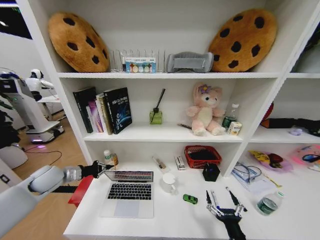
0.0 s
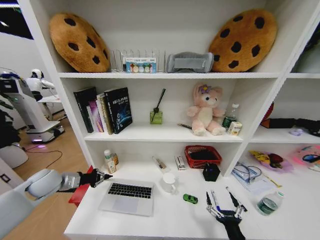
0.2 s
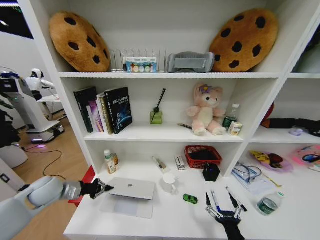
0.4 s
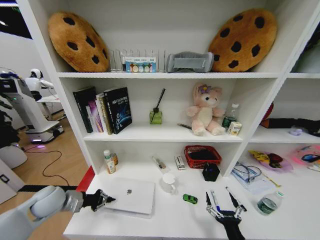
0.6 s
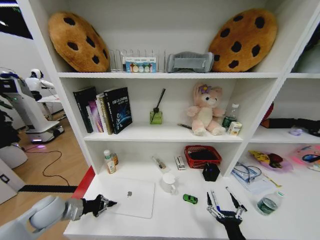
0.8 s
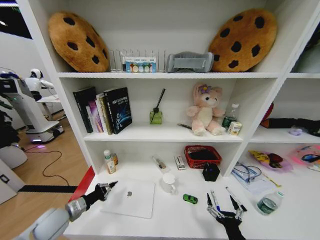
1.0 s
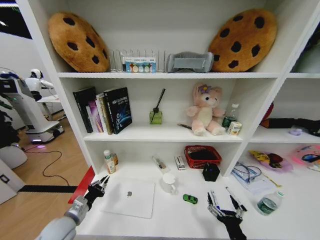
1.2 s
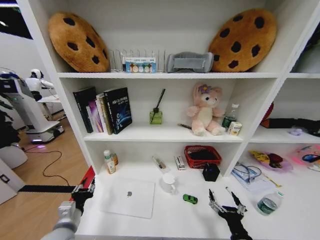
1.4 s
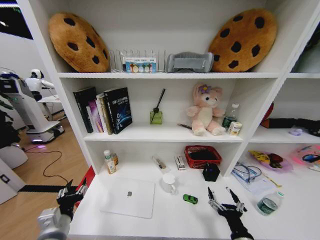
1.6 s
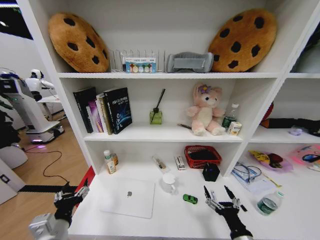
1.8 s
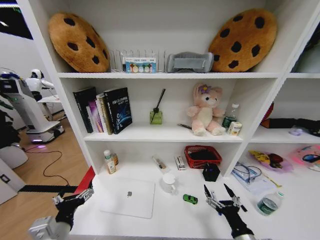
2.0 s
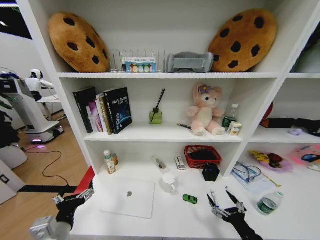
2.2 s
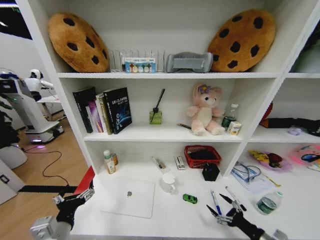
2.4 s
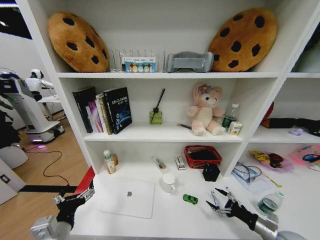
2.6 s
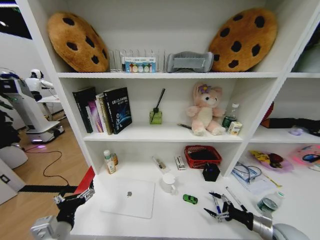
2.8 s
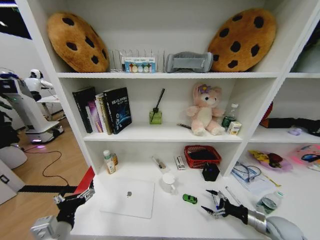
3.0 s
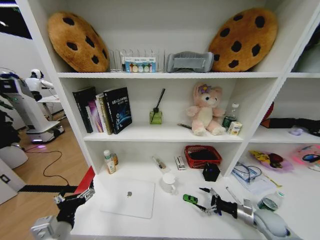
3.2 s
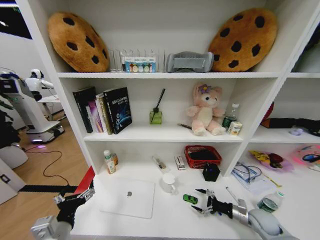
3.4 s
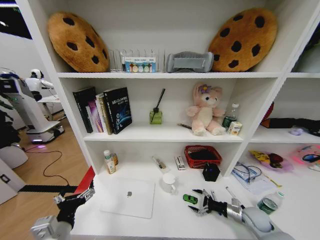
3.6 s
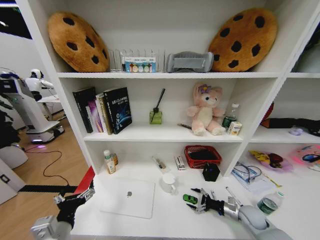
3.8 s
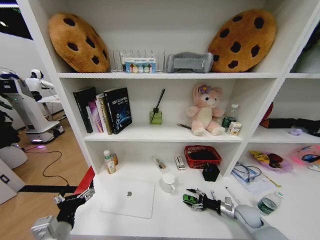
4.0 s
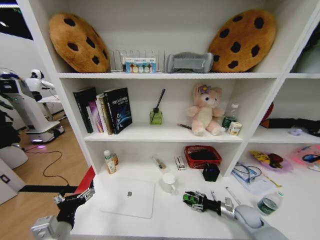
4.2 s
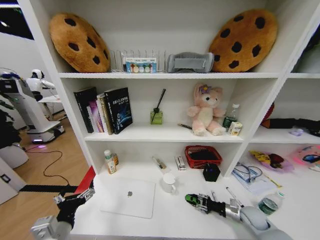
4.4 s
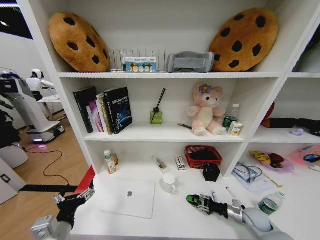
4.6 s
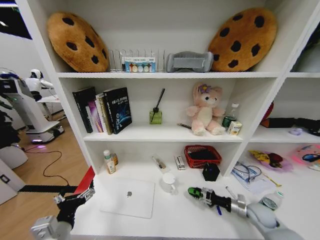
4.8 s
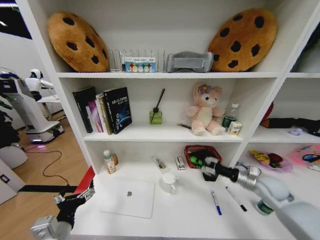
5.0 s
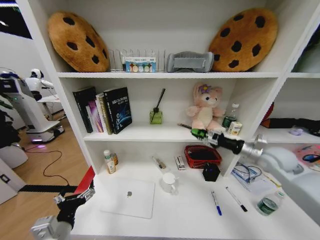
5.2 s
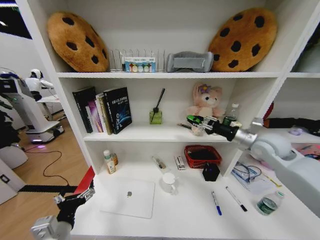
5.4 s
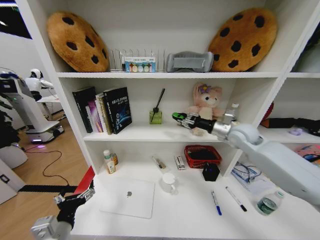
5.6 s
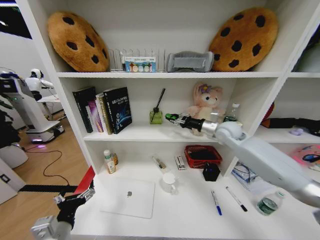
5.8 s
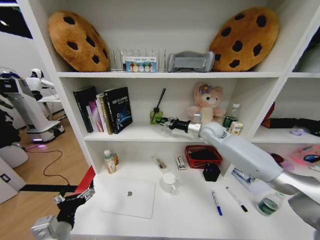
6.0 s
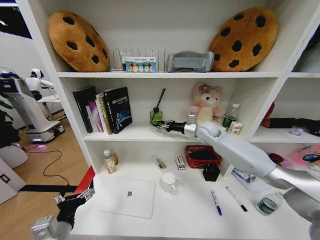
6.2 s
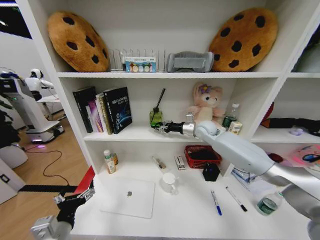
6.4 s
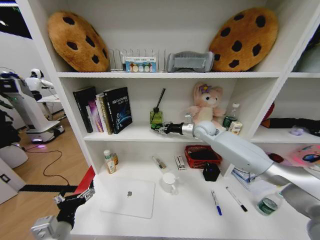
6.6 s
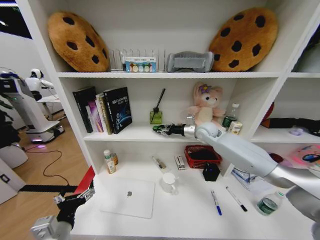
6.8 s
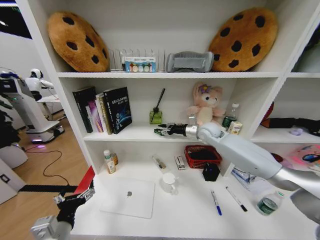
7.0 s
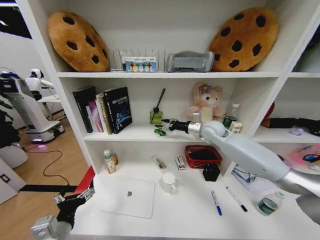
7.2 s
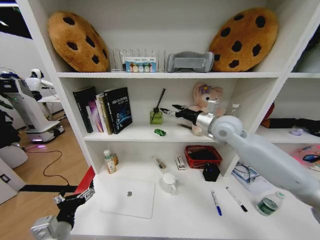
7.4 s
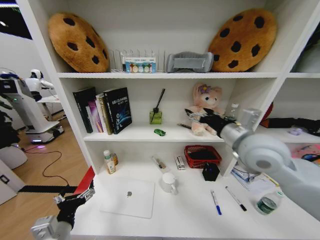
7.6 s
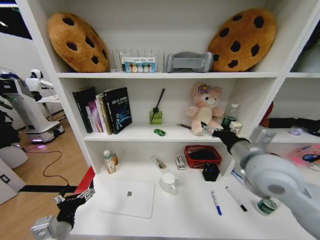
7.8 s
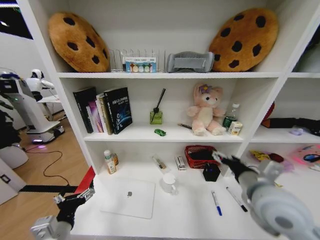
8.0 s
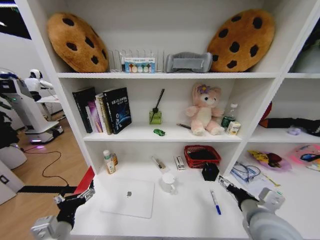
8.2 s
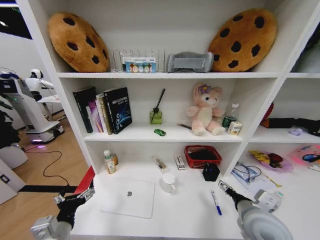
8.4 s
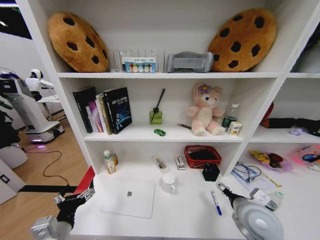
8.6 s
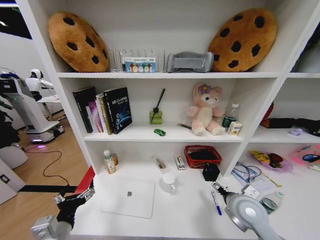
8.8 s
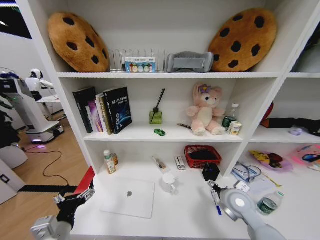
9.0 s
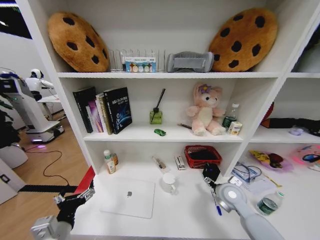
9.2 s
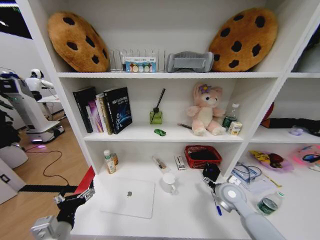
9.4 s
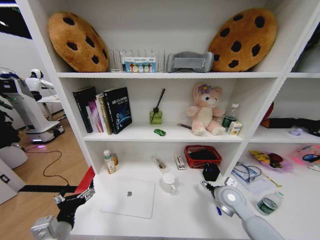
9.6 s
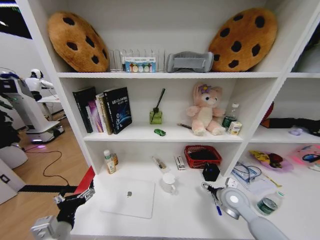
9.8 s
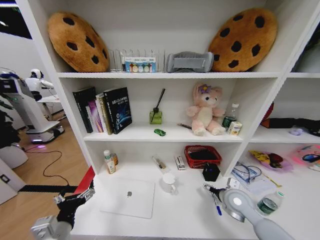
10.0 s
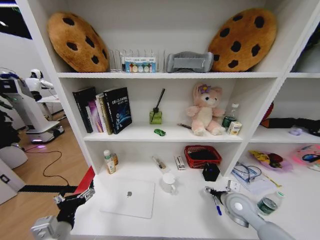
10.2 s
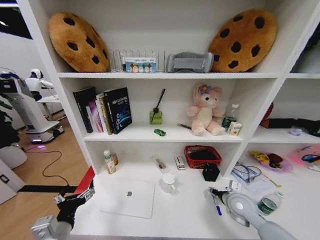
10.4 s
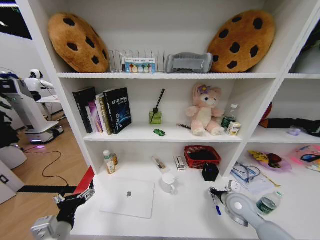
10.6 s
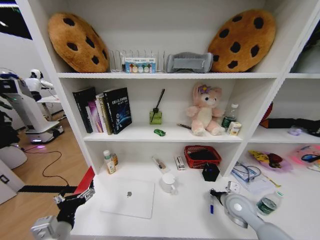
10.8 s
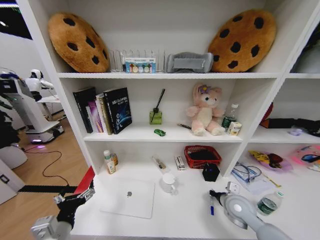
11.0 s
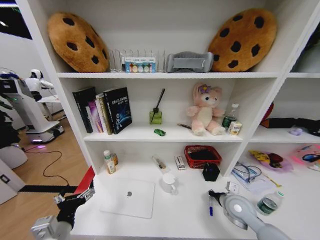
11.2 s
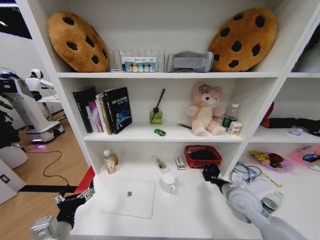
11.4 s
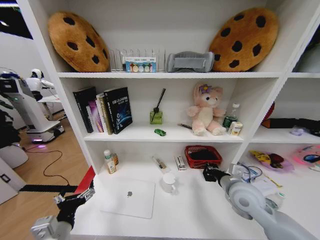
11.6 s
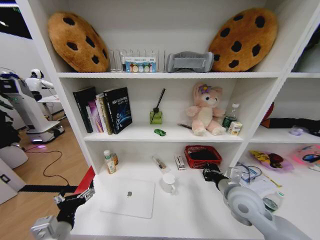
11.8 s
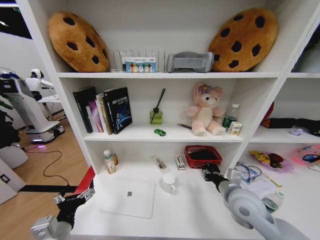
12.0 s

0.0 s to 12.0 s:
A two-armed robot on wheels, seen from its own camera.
Task of the whole recording: Organize the objects on the table.
0.0 to 1.6 s: The left gripper moves backward and to the right, roughly 25 cm, and opens its fingers.
1.6 to 3.0 s: The left gripper shifts by roughly 5 cm, and opens up, while the right gripper shifts approximately 25 cm to the right and forward.
3.0 to 4.4 s: The right gripper is displaced forward and to the left by approximately 10 cm, and closes up.
4.4 to 6.0 s: The right gripper moves upward, forward and to the left, about 40 cm.
6.0 to 7.6 s: The right gripper travels backward and upward by approximately 25 cm, and opens up.
7.6 to 9.0 s: The right gripper moves downward, about 25 cm.
9.0 to 10.4 s: The right gripper is displaced downward by about 5 cm.
10.4 to 12.0 s: The right gripper moves upward, about 10 cm.

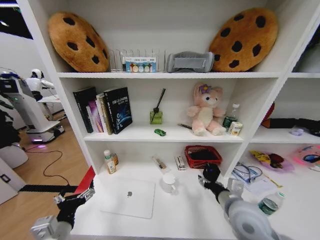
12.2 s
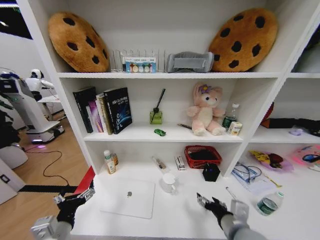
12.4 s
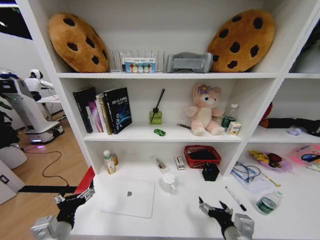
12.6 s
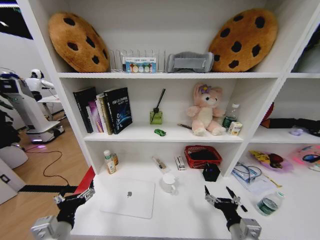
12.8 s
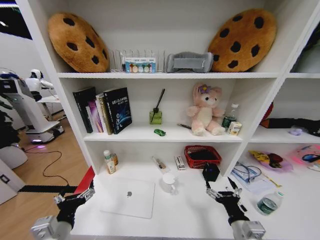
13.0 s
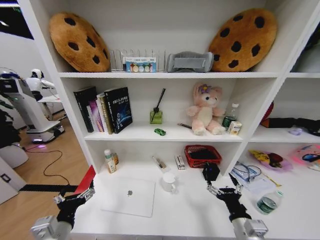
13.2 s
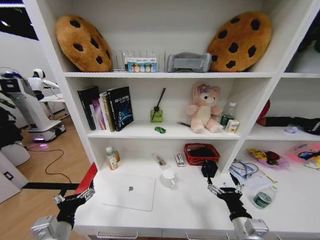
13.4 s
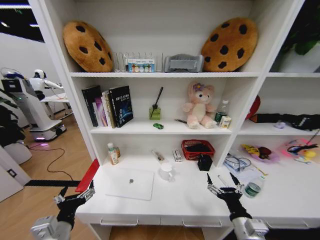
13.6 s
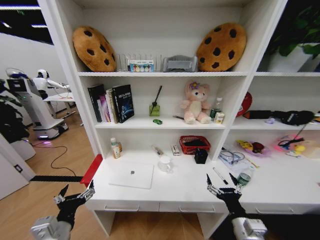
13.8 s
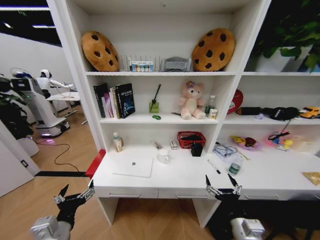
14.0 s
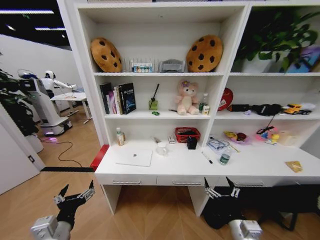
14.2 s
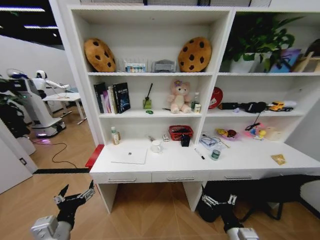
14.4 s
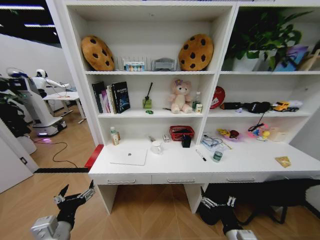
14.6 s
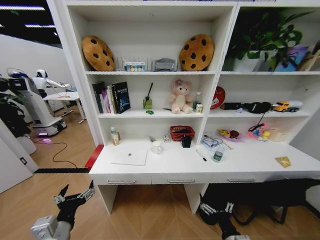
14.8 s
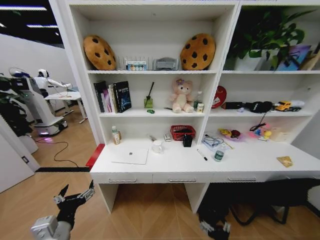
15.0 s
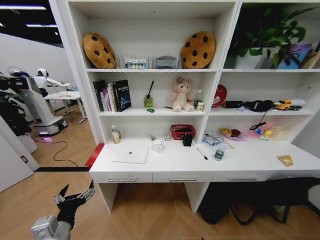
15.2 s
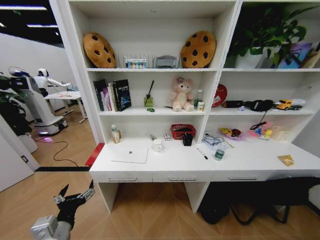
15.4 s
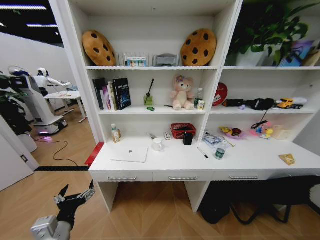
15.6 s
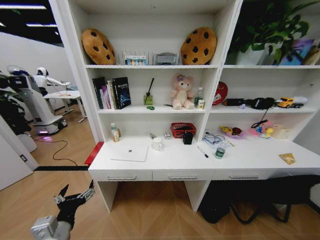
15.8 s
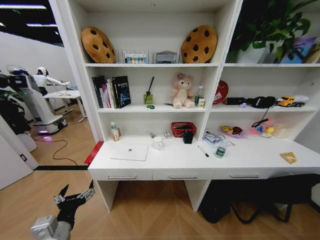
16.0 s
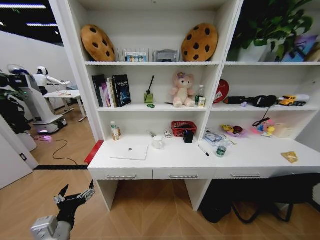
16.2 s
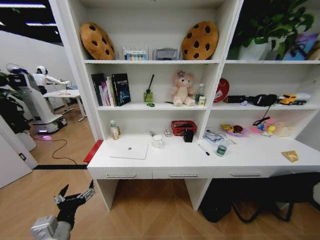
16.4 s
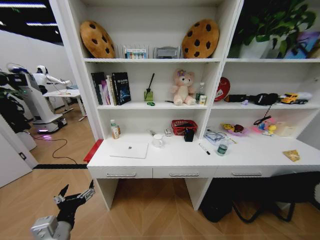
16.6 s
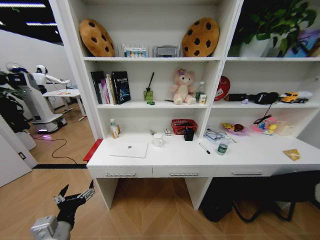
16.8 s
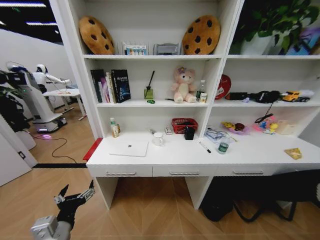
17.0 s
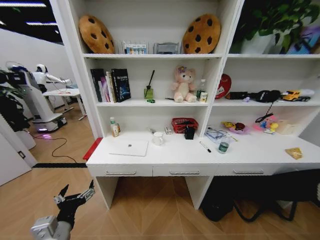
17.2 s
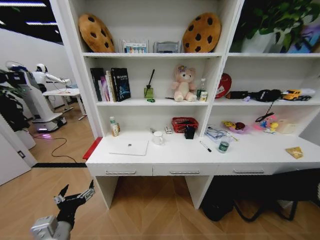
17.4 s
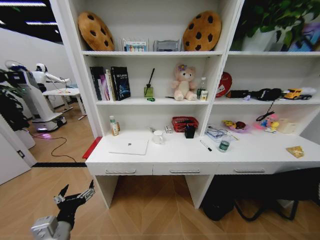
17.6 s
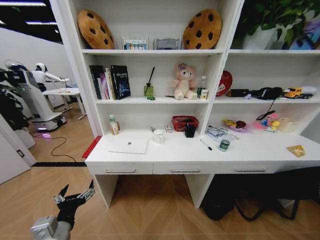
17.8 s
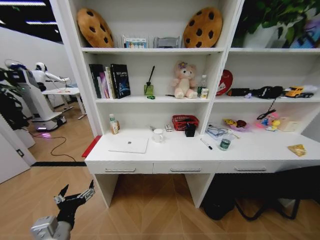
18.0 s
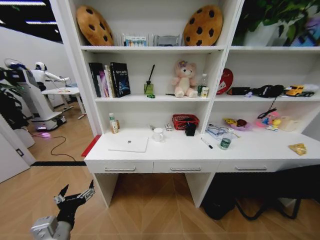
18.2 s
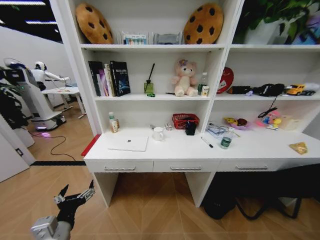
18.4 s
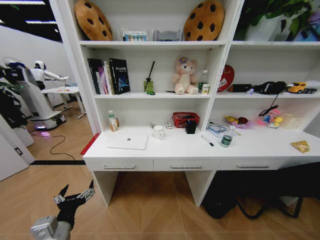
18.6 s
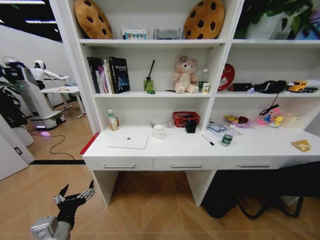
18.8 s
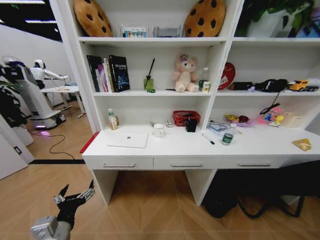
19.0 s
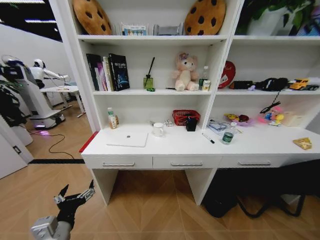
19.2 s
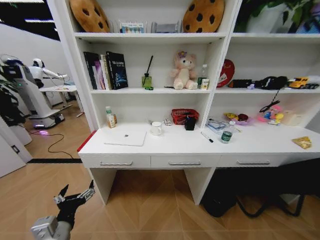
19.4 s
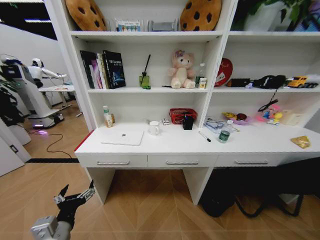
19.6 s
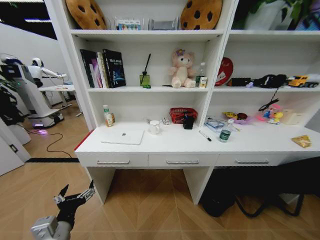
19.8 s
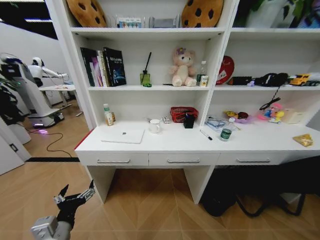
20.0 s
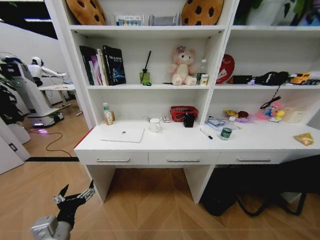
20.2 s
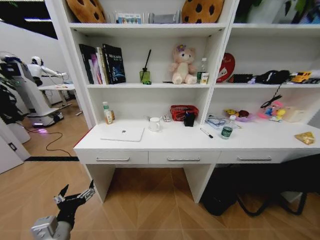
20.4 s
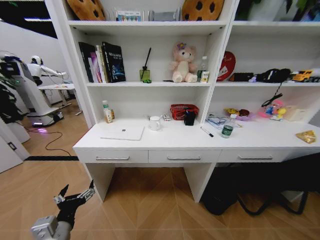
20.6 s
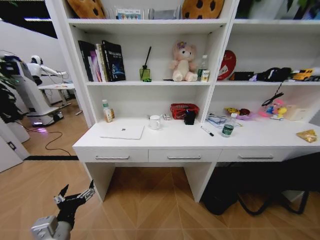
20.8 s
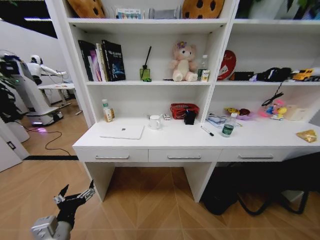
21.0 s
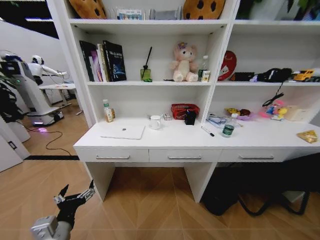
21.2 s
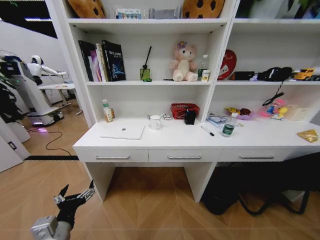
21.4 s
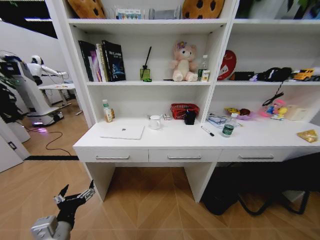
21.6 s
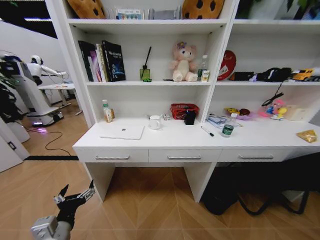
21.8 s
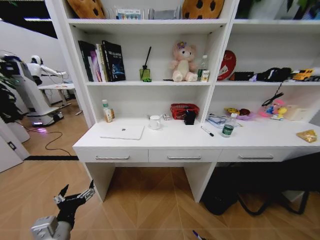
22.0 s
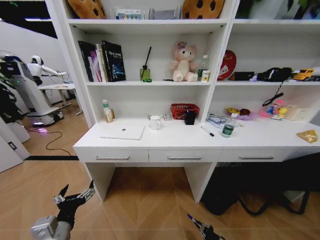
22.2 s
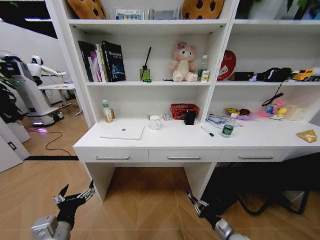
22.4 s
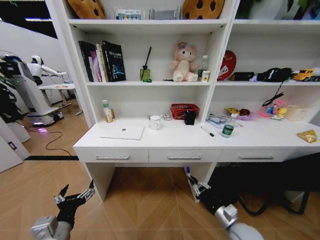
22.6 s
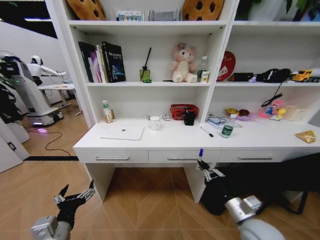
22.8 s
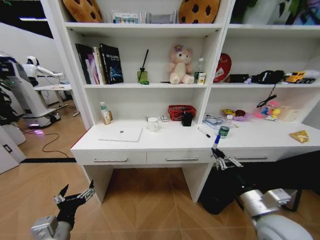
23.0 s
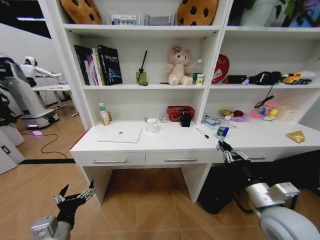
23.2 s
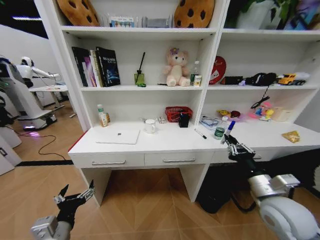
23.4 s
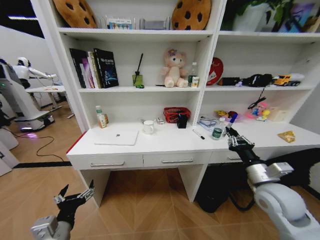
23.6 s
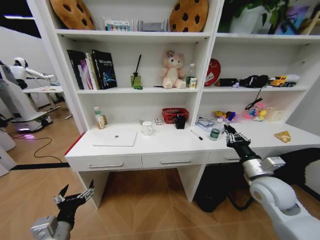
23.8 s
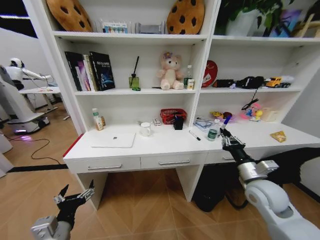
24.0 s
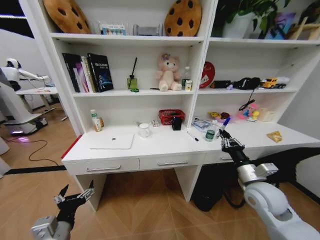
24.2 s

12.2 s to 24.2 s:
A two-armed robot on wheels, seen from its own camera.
Task of the whole recording: Organize the objects on the table.
12.2 to 13.8 s: The right gripper is displaced backward and downward by approximately 15 cm, and opens up.
13.8 to 15.2 s: The right gripper goes approximately 20 cm downward and backward.
15.2 to 16.6 s: The right gripper heads downward and to the right, covering some 30 cm.
16.6 to 18.2 s: The right gripper travels to the left by roughly 5 cm.
19.8 to 21.2 s: The right gripper closes.
21.2 to 22.6 s: The right gripper goes about 35 cm upward.
22.6 to 24.2 s: The right gripper heads upward and forward, covering roughly 15 cm.
